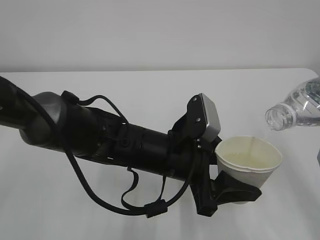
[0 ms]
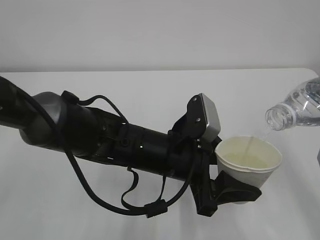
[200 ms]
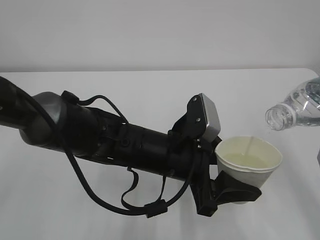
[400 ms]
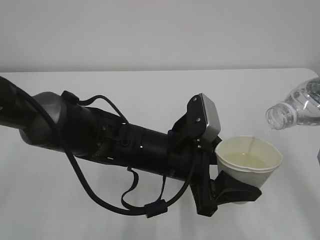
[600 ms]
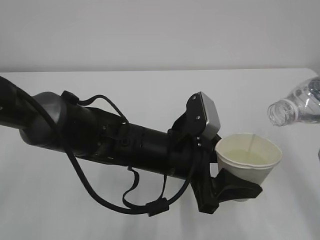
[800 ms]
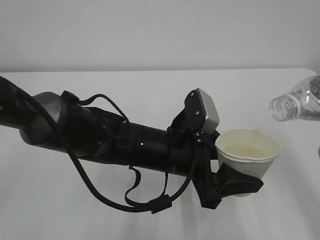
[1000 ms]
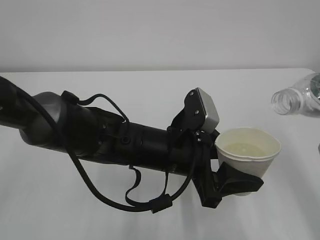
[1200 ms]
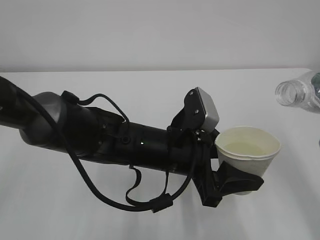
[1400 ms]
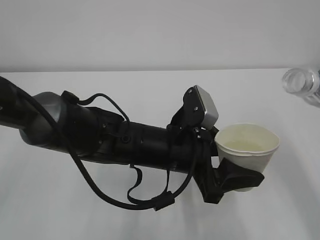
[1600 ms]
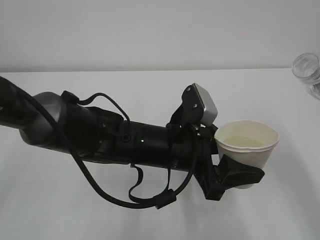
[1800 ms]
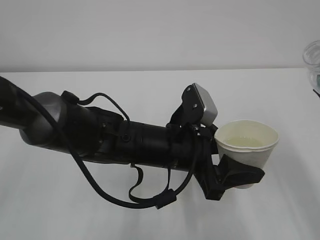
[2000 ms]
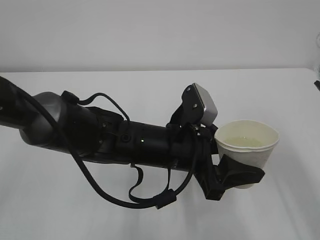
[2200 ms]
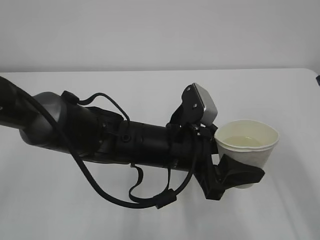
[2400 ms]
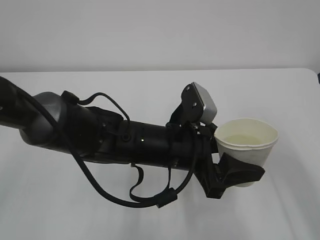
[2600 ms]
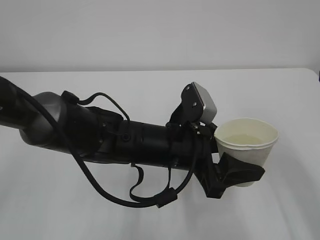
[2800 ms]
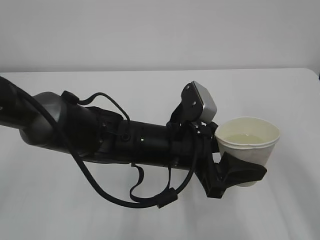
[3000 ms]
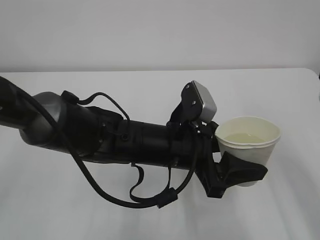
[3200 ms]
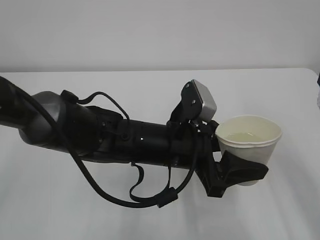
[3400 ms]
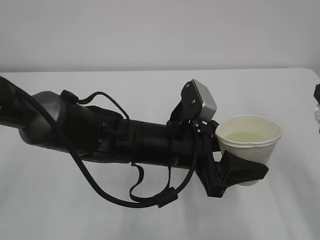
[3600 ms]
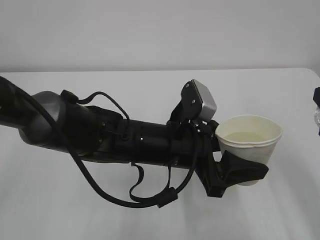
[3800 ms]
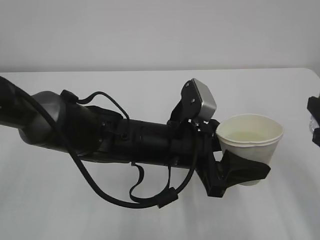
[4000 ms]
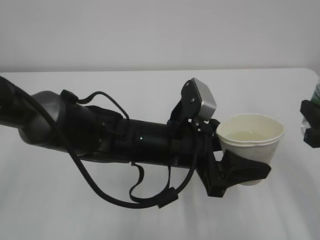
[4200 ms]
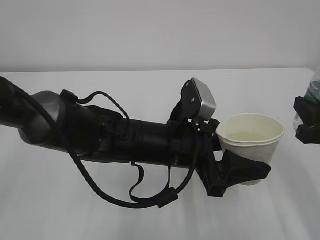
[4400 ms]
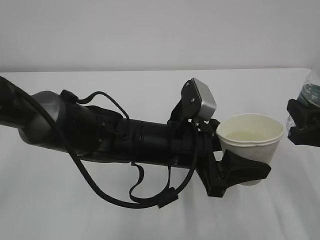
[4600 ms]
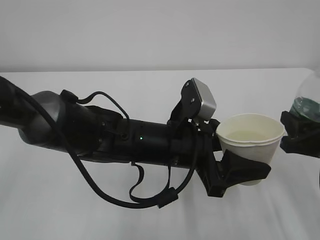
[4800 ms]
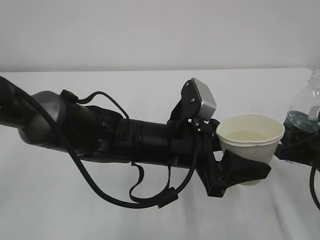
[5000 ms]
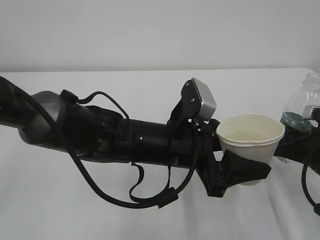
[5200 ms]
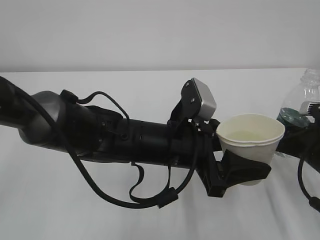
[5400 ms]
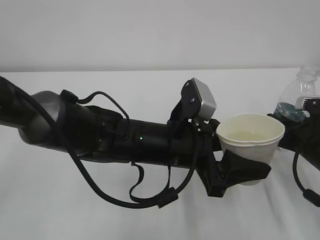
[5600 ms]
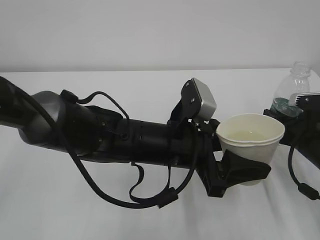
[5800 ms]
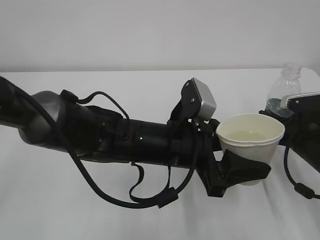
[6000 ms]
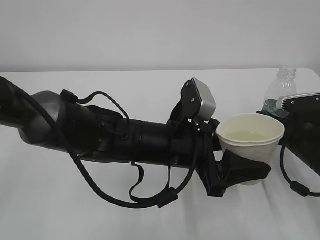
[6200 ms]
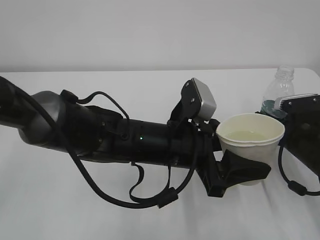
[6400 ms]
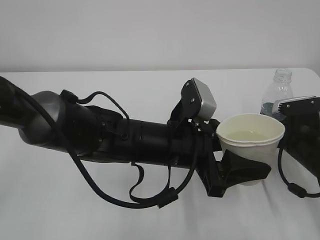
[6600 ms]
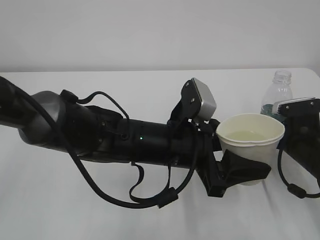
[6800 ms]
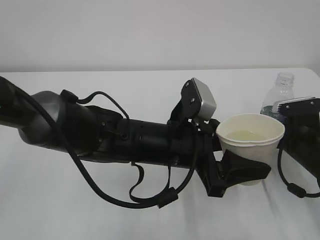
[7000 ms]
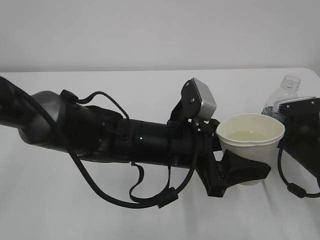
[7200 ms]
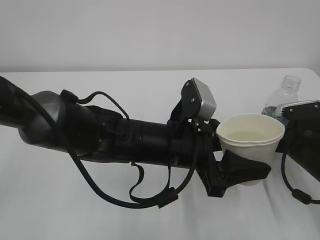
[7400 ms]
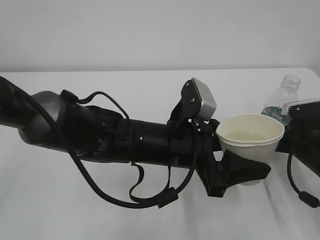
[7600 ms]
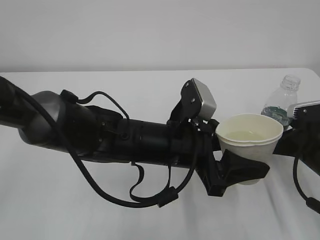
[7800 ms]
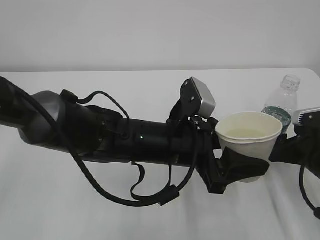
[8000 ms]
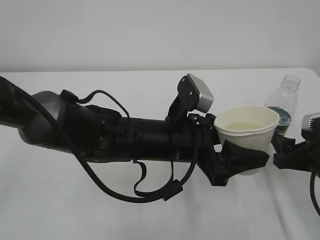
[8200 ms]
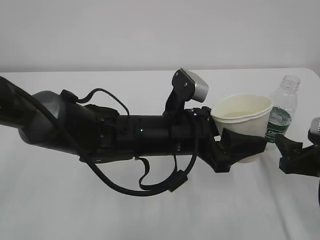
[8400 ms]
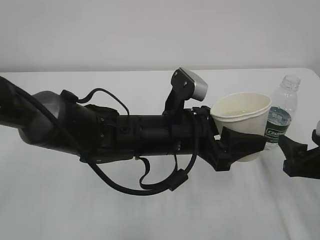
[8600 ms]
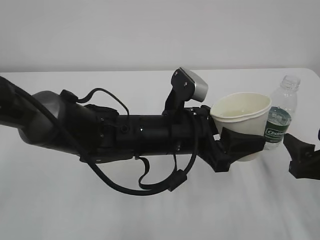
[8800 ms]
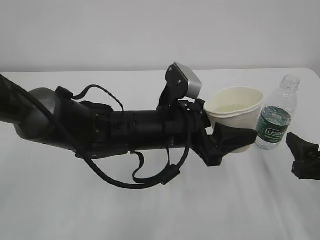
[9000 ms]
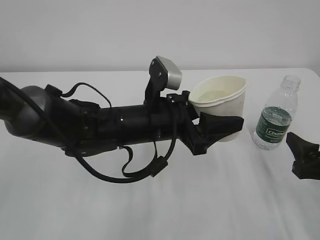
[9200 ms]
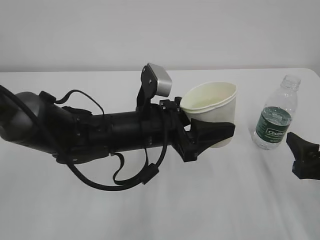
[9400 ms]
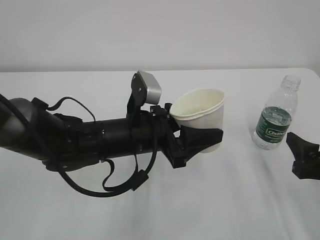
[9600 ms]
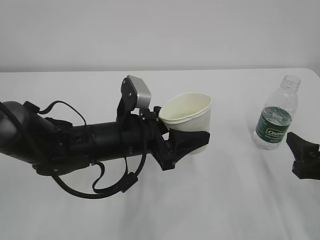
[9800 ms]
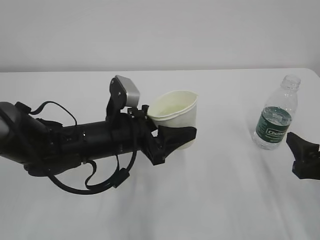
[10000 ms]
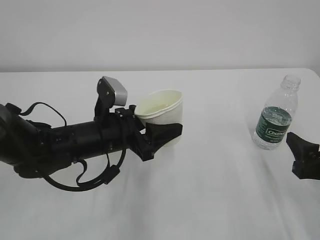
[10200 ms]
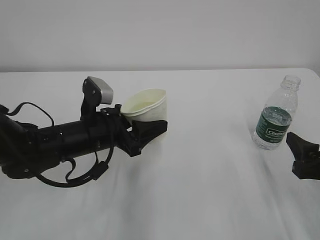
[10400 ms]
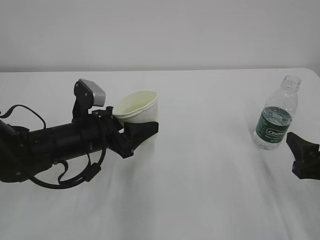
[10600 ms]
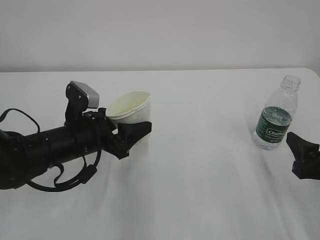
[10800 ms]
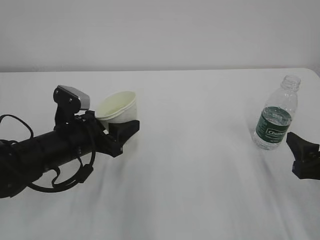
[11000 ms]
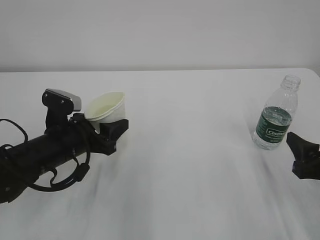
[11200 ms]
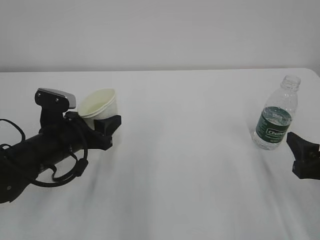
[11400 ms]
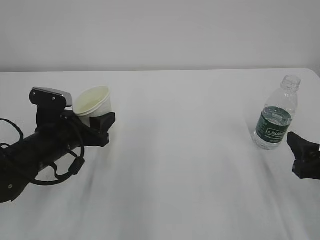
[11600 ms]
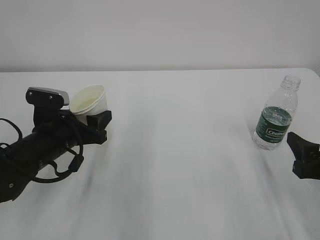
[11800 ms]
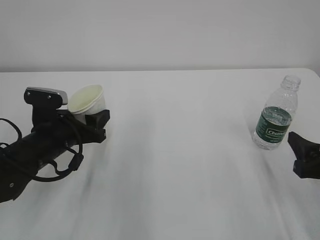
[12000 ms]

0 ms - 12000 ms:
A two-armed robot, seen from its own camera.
3000 ms - 4400 ms: The right gripper is displaced downward by about 5 cm.
4400 ms - 6000 ms: The right gripper travels downward and forward by approximately 15 cm.
6000 ms - 7600 ms: The right gripper opens its fingers.
7600 ms - 9000 ms: The right gripper is displaced backward by some 10 cm.
9000 ms - 10400 ms: The left gripper is displaced to the left by about 10 cm.
10400 ms - 12000 ms: The left gripper goes about 5 cm to the left.

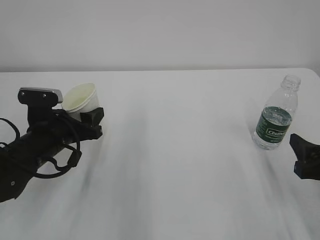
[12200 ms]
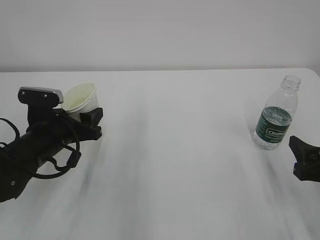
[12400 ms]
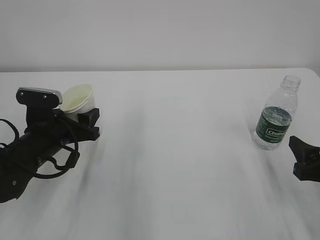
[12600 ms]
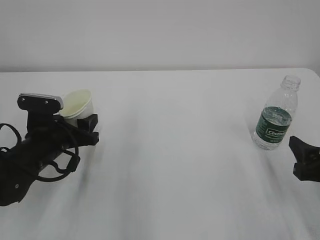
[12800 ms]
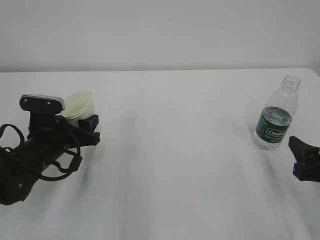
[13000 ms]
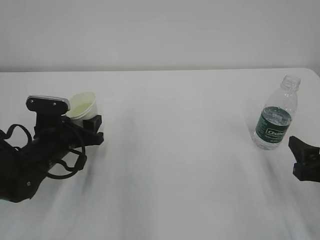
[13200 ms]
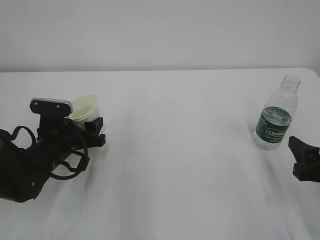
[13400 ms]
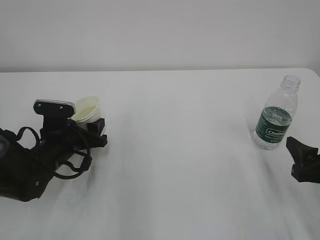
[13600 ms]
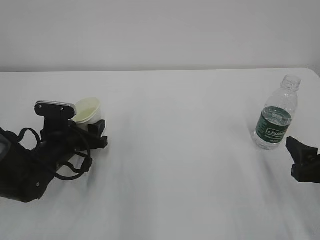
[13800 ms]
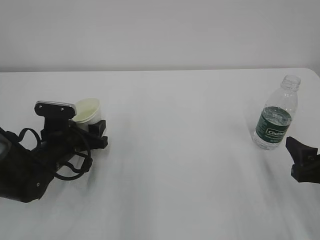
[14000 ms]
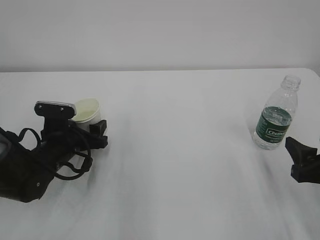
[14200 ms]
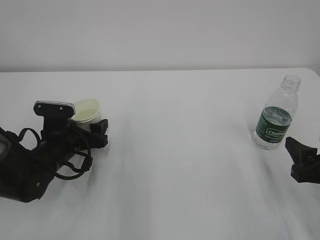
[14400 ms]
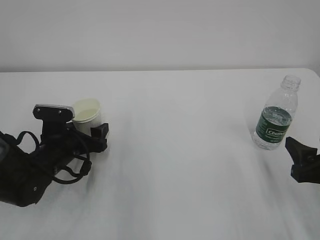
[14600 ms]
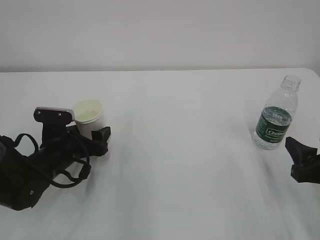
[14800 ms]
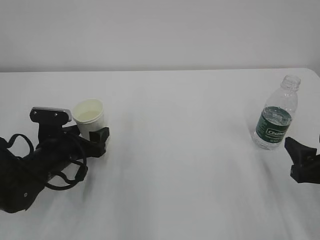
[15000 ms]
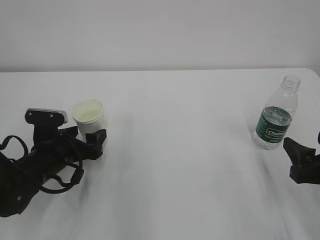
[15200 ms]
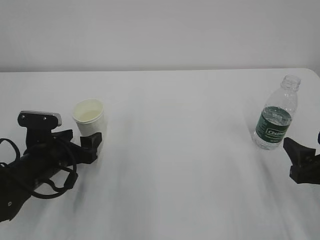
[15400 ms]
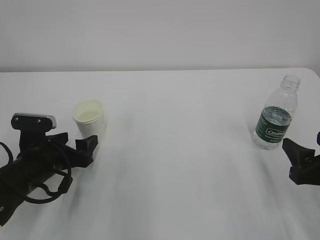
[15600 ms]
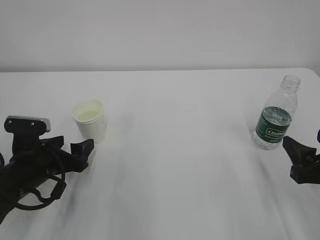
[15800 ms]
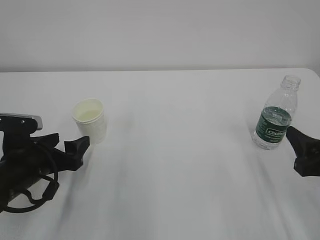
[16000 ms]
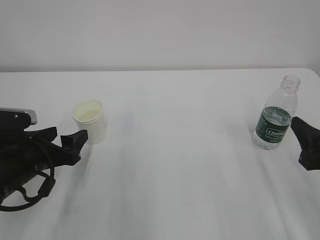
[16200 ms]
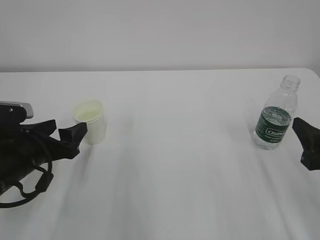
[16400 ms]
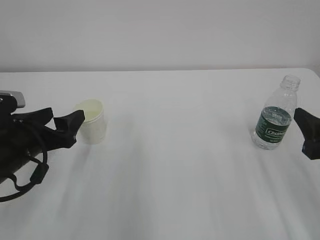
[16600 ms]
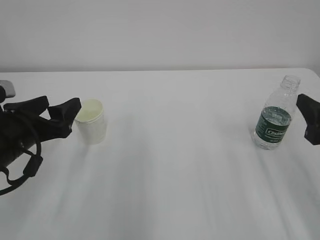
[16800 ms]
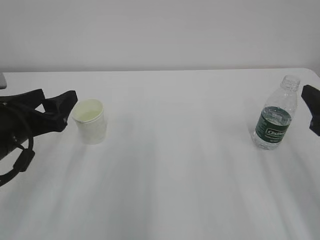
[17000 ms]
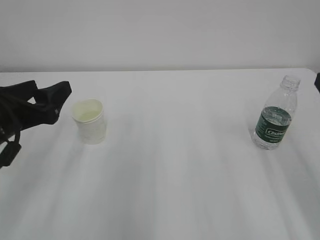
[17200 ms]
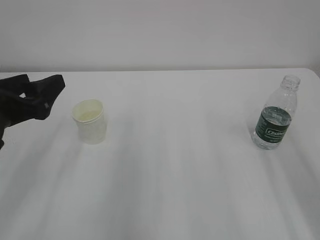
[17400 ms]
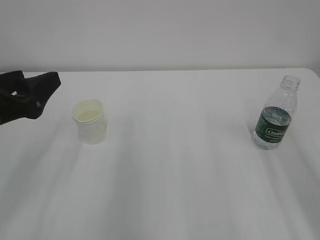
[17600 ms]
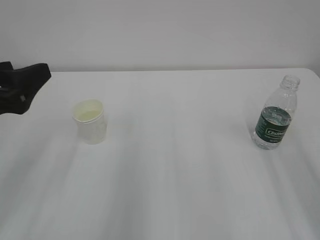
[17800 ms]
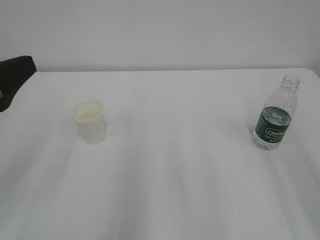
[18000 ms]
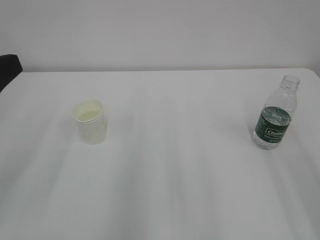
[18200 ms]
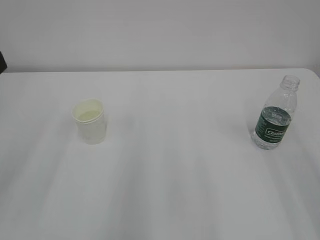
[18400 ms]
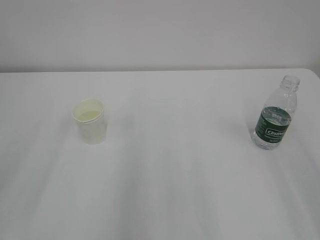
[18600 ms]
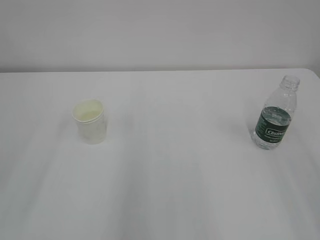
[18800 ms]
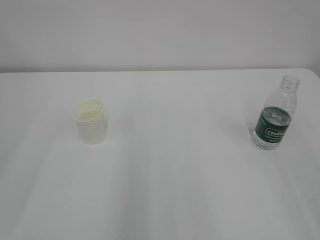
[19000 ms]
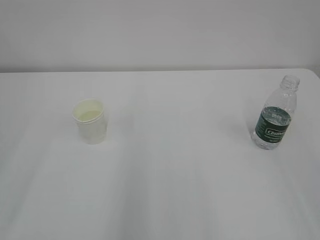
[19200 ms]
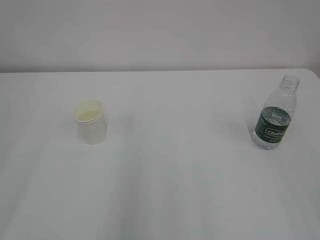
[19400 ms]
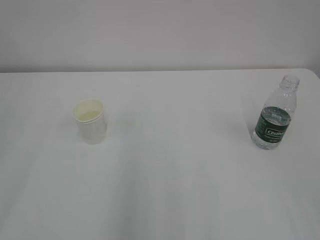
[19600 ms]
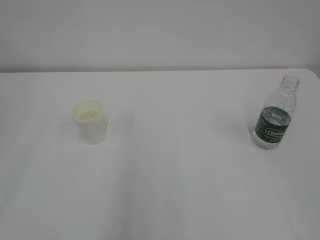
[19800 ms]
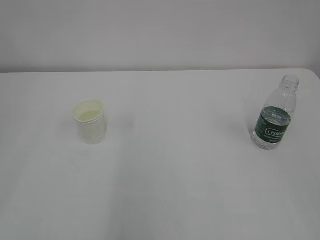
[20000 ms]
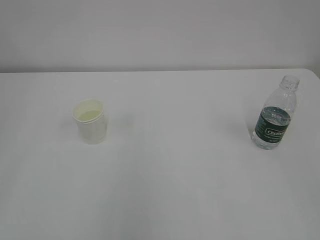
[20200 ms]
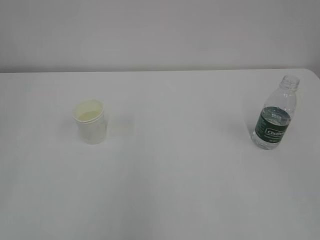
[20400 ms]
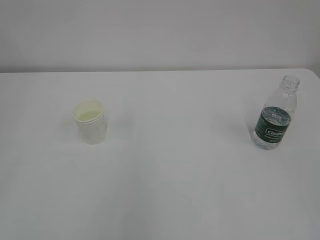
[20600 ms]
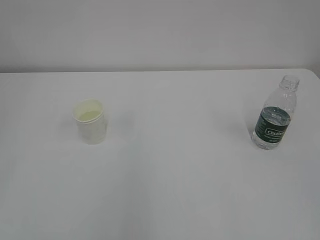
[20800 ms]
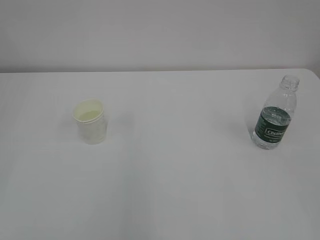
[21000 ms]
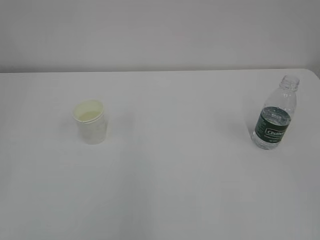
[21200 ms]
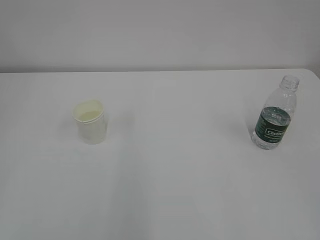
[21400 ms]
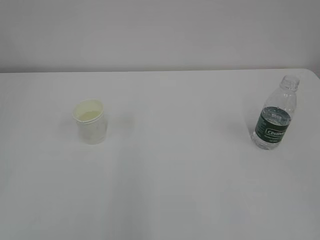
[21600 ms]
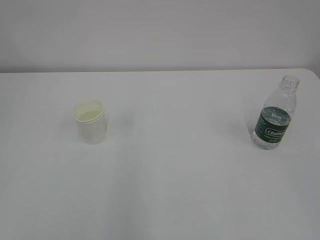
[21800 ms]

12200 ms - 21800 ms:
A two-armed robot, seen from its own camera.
12200 ms - 13800 ms: The left gripper ends up roughly 5 cm from where it was.
13800 ms - 15400 ms: The left gripper opens.
15400 ms - 17000 ms: The two grippers go some 10 cm upward.
17000 ms - 18600 ms: The left gripper is displaced upward and backward by roughly 15 cm. The right gripper moves backward and upward, some 15 cm.

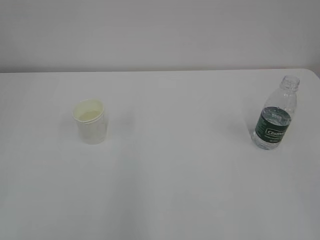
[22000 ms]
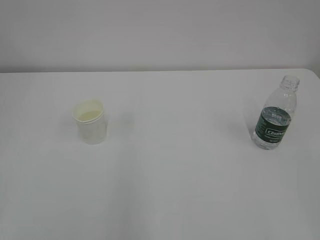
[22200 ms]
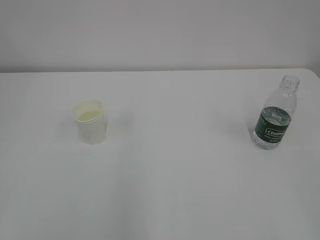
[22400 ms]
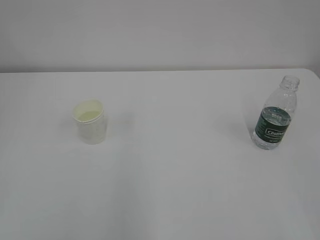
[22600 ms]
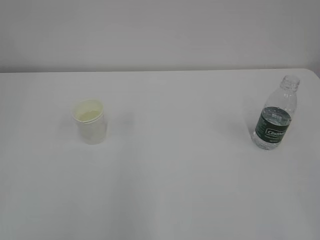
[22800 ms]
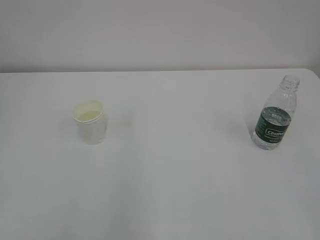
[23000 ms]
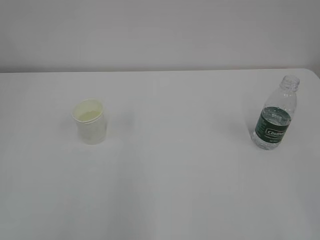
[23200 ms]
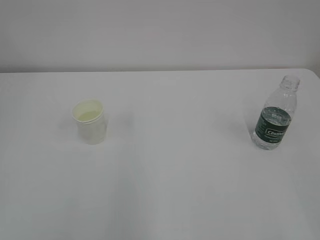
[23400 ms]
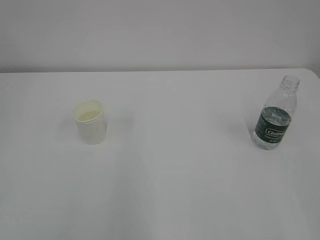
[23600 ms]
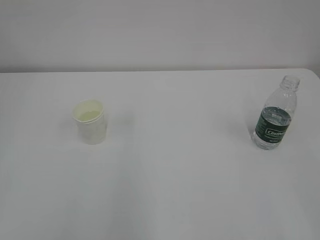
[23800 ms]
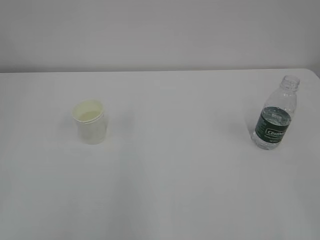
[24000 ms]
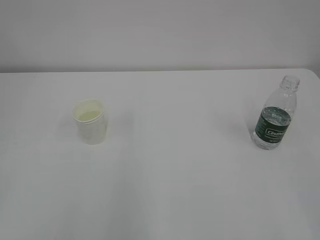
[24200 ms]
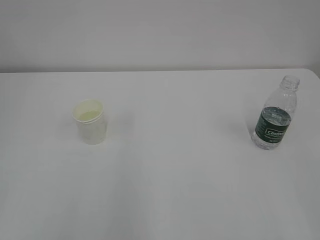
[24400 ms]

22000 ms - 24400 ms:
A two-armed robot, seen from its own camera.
23200 ms - 24400 ms: Neither gripper changes place.
